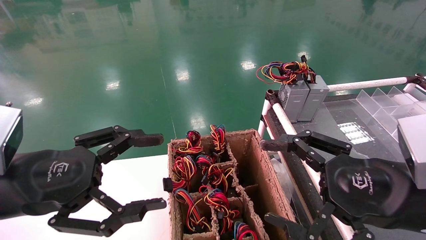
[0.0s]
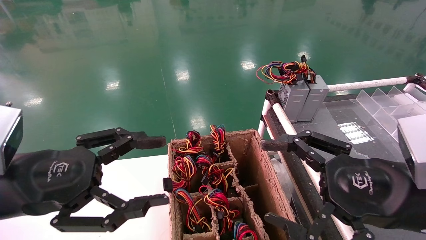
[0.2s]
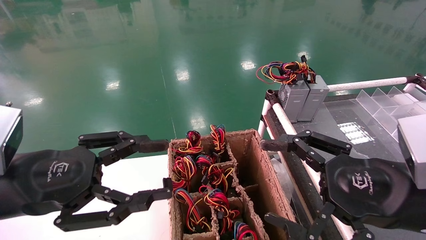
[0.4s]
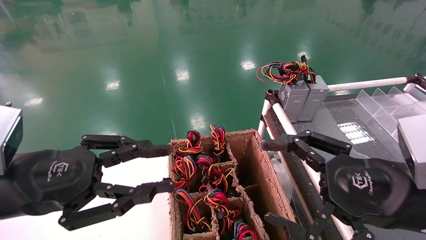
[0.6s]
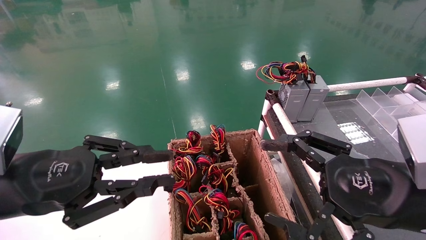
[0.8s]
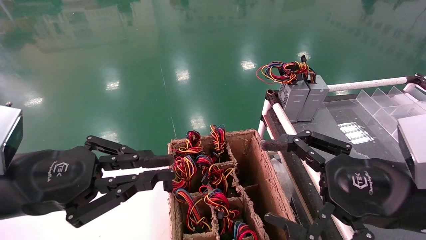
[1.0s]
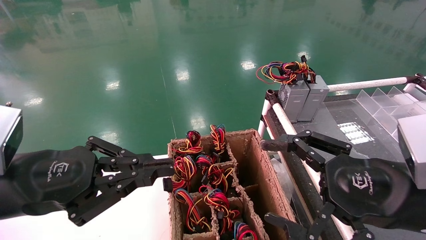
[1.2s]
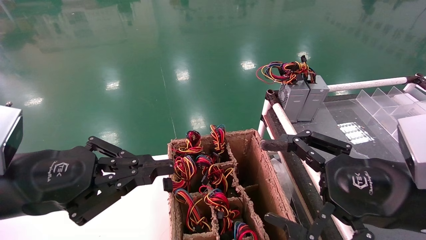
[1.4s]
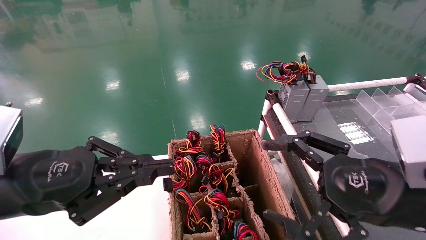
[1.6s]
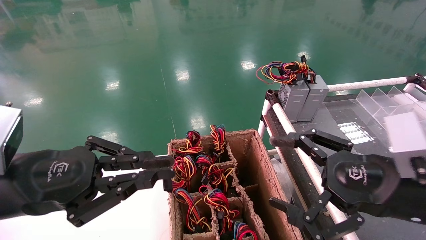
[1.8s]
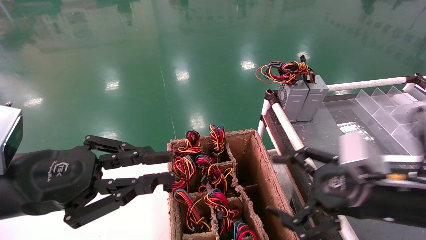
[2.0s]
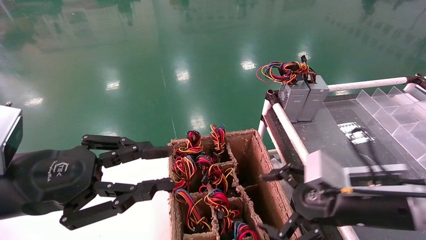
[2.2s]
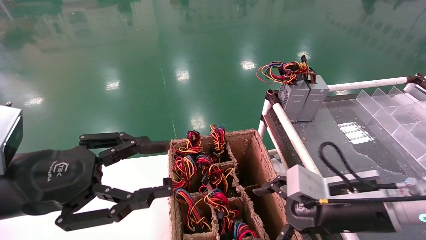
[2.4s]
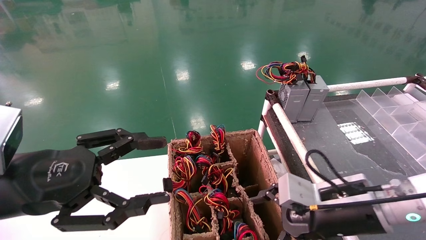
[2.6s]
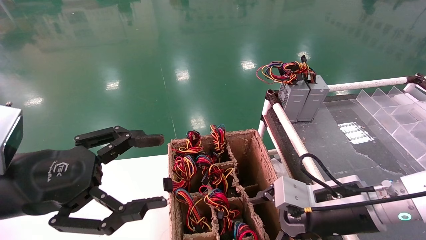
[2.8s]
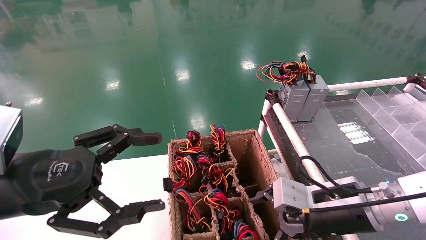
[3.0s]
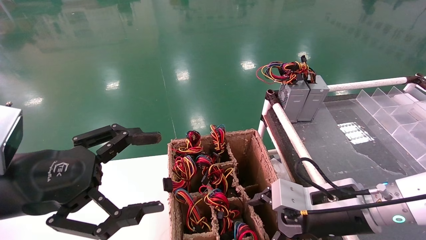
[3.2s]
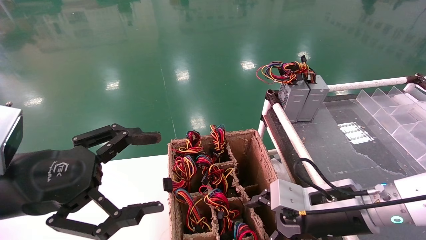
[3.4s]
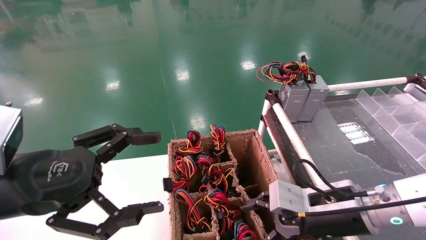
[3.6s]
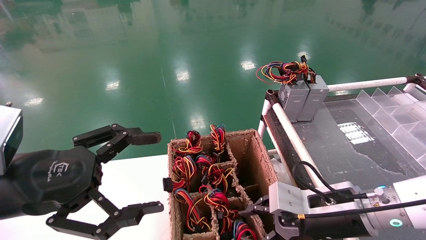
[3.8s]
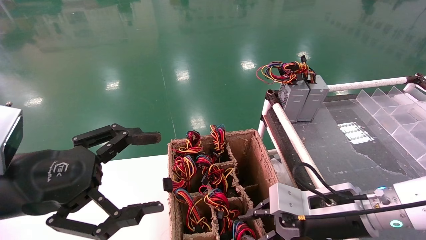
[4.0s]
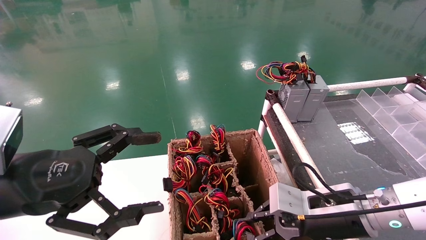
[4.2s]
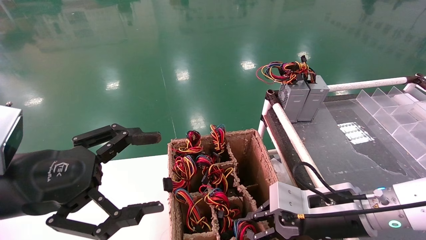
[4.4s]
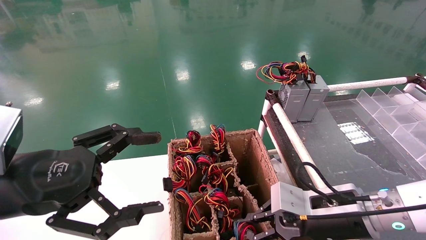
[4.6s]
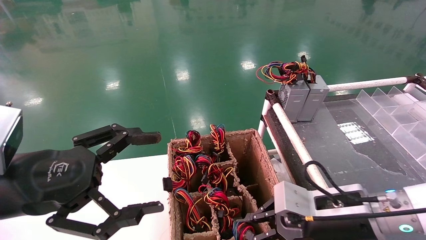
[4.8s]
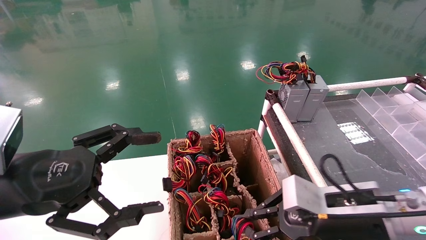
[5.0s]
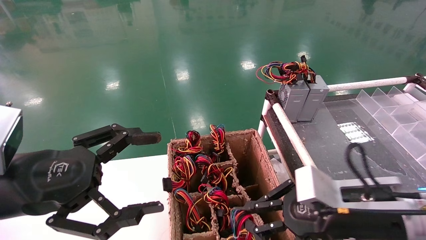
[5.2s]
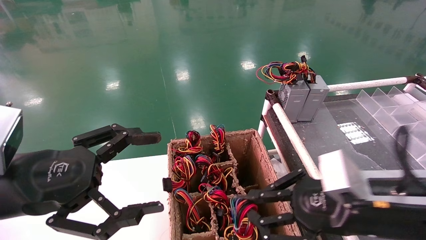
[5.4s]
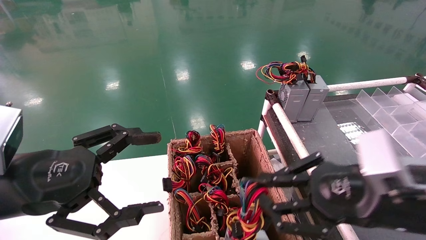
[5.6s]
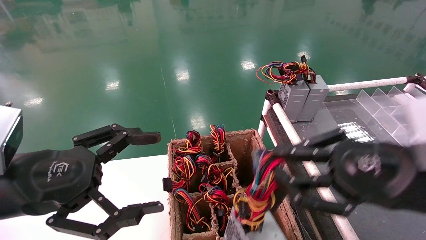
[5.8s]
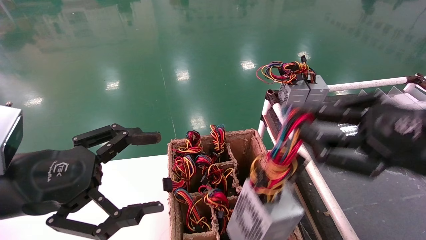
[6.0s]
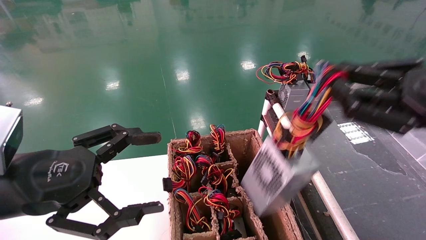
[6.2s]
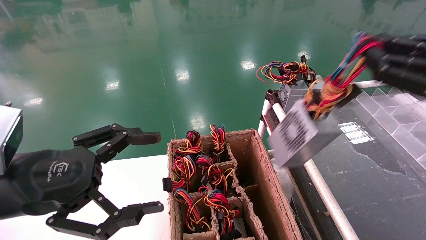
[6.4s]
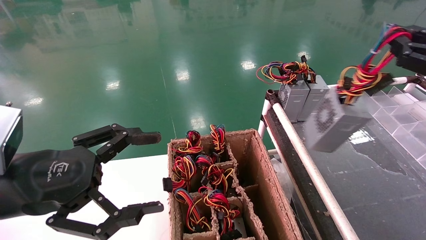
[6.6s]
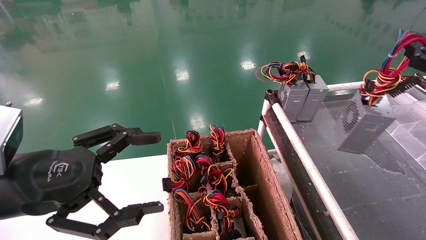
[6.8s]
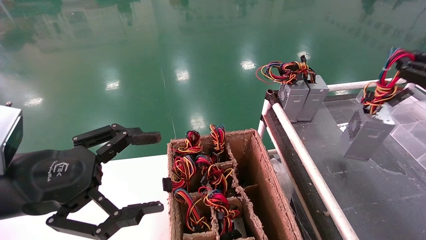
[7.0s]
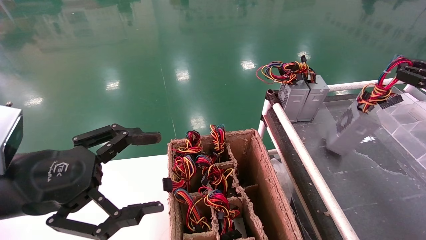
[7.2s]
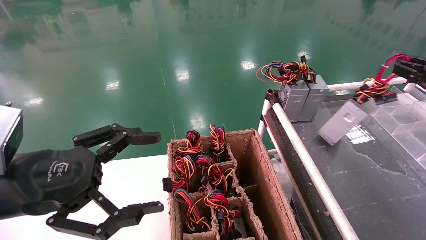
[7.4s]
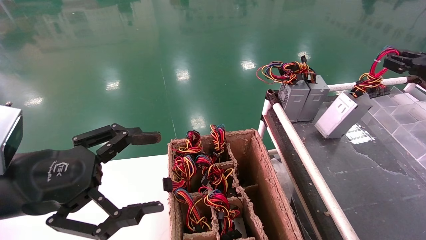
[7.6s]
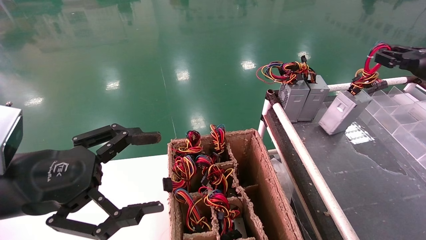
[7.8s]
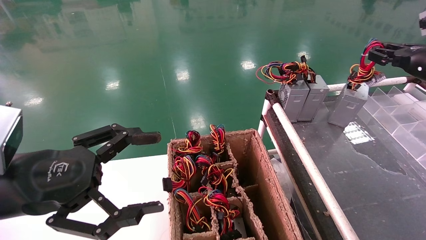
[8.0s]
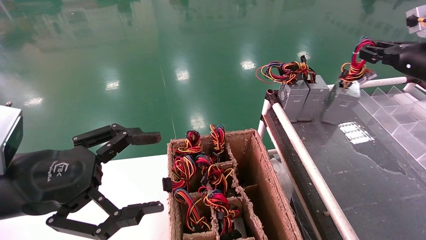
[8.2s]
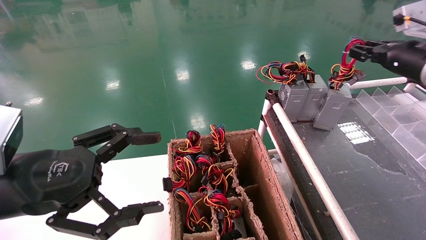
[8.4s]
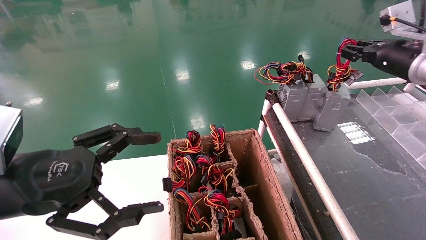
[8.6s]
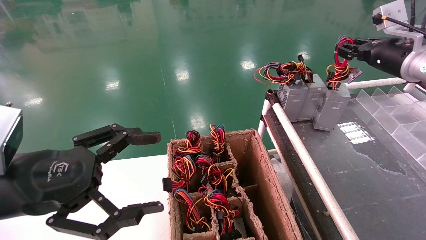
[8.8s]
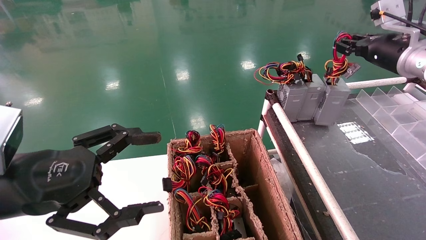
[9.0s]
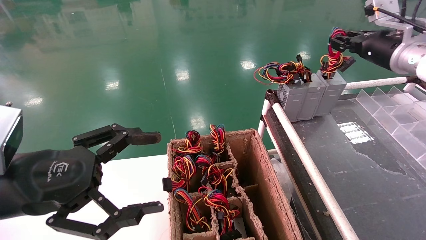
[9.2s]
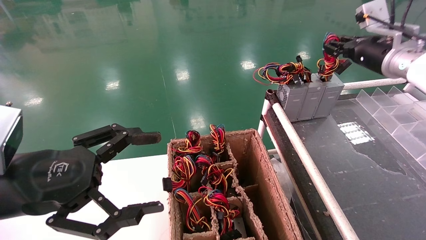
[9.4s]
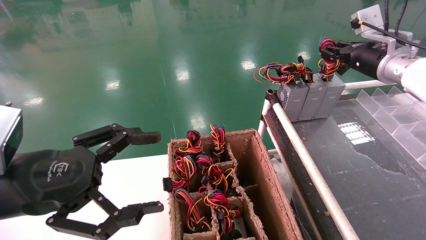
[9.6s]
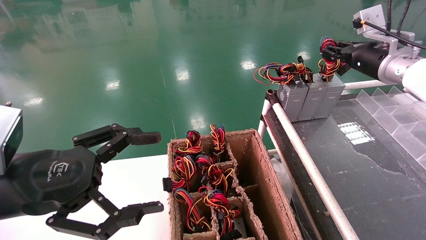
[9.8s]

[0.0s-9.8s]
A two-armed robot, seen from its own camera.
Step, 1.2s to 5.2s: Grab and lift the power supply from the large box.
0.0s to 1.4s: The left gripper closes up.
1.4s to 2.8s: The right gripper is displaced forward and downward by some 10 cm; the left gripper opens.
2.8s to 4.2s: The right gripper closes.
4.2s to 5.6s: The right gripper goes about 10 cm upward and backward.
5.6s to 7.0s: The right gripper goes roughly 25 cm to the right and forward.
7.0s to 8.4s: The right gripper is displaced forward and to the left by roughly 15 cm.
8.4s to 9.8s: The right gripper travels to the left by approximately 5 cm.

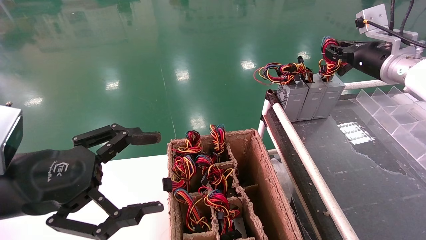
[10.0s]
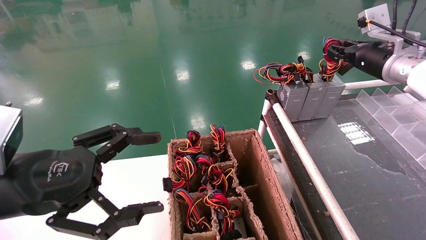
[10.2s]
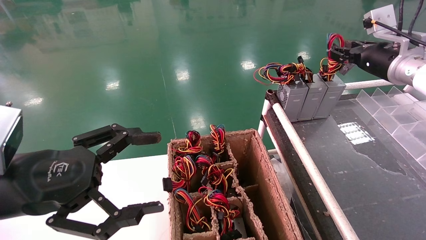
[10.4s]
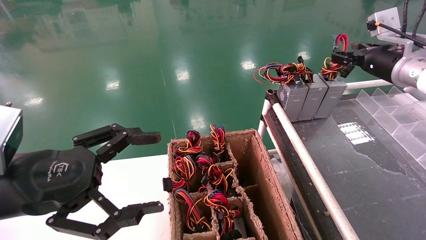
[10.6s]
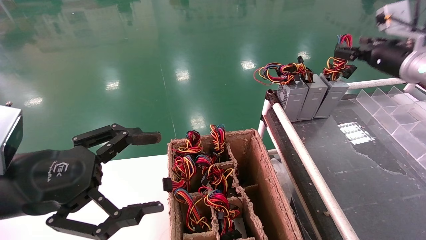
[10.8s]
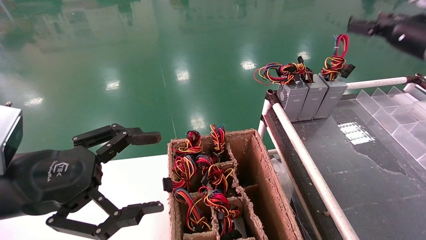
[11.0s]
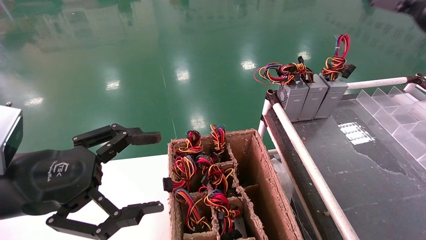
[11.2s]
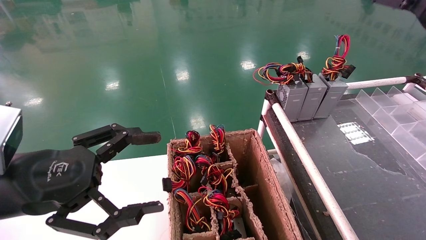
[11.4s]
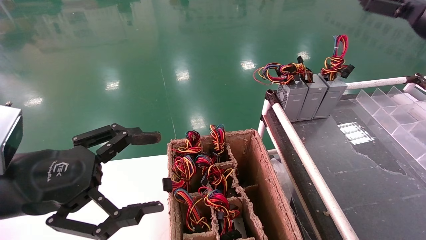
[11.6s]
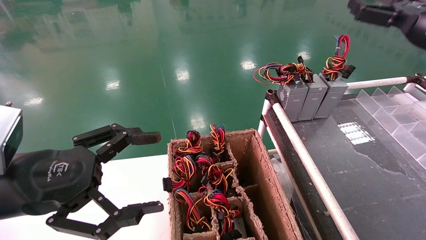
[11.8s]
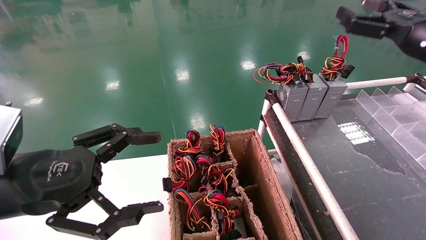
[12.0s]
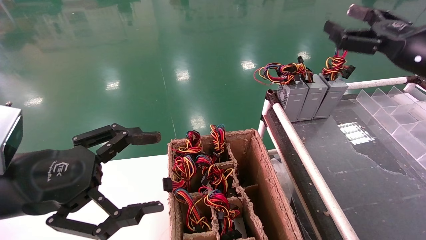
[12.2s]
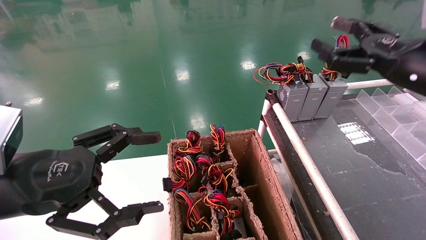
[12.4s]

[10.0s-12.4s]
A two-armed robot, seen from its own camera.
10.0s to 11.2s: The right gripper moves backward, upward and to the right, about 10 cm, and opens up.
11.2s to 12.4s: The right gripper moves backward, to the left and downward, approximately 15 cm.

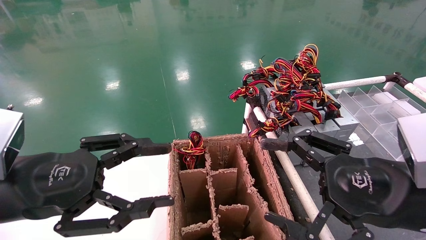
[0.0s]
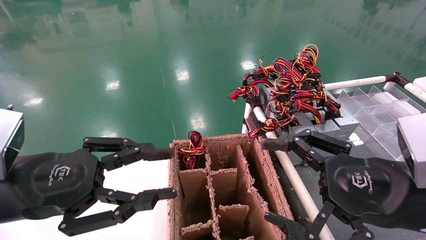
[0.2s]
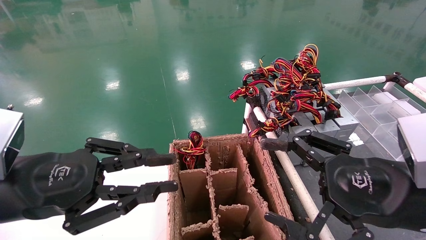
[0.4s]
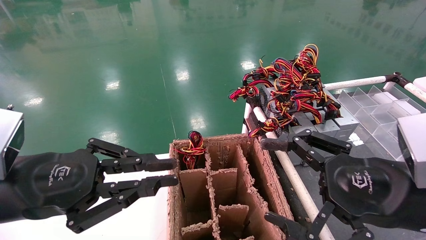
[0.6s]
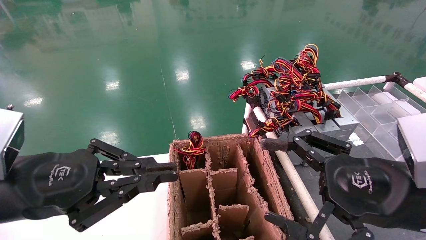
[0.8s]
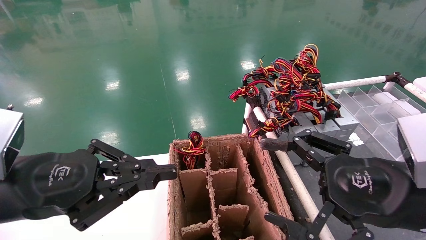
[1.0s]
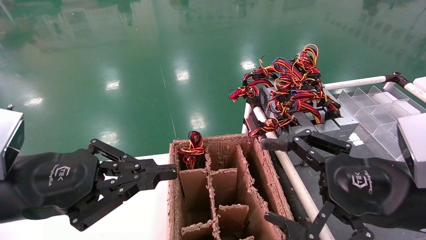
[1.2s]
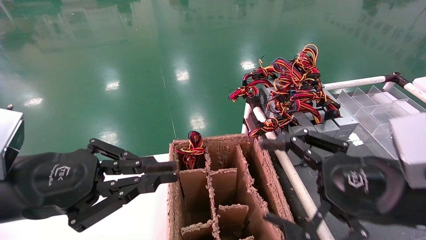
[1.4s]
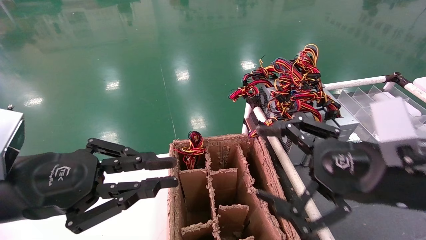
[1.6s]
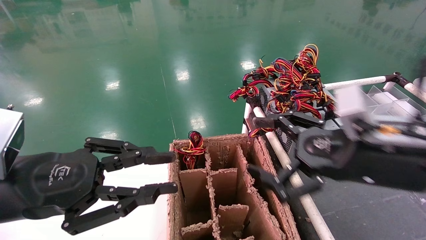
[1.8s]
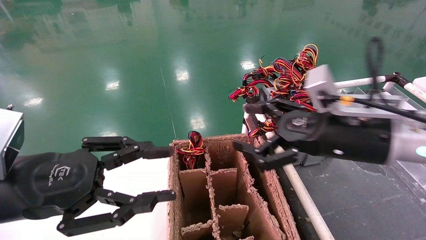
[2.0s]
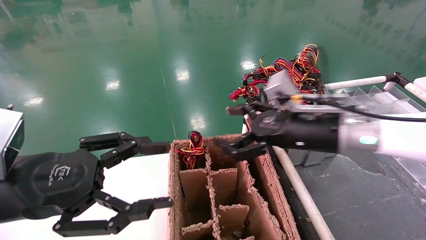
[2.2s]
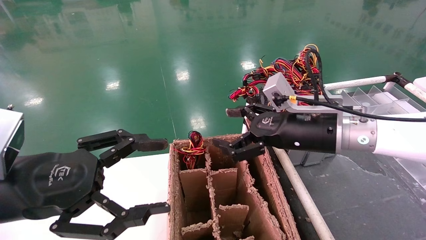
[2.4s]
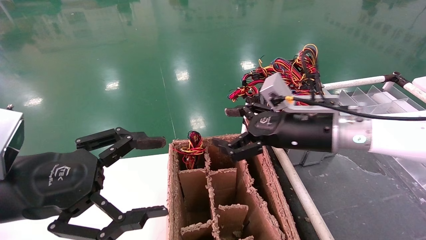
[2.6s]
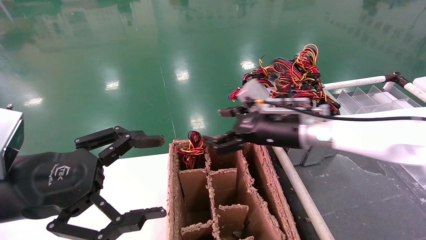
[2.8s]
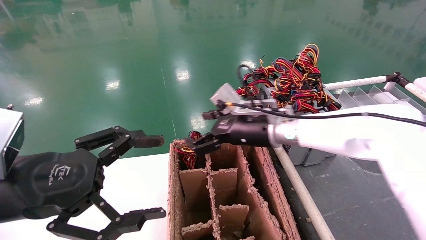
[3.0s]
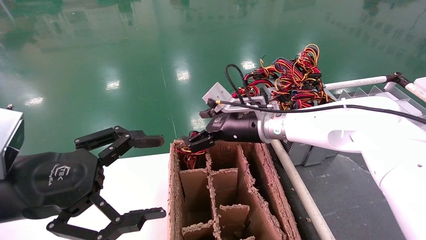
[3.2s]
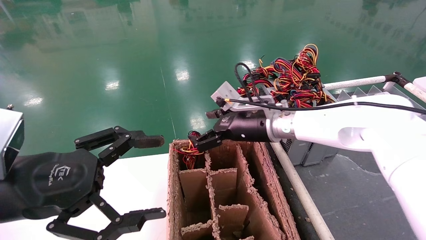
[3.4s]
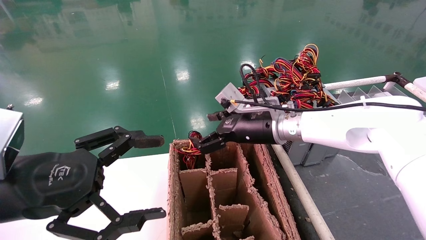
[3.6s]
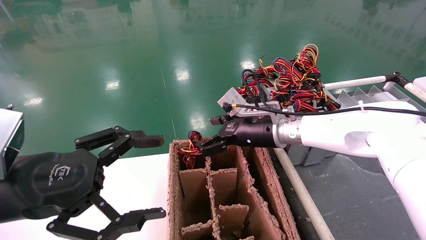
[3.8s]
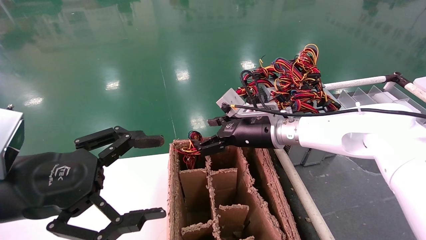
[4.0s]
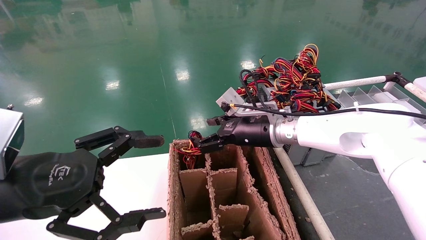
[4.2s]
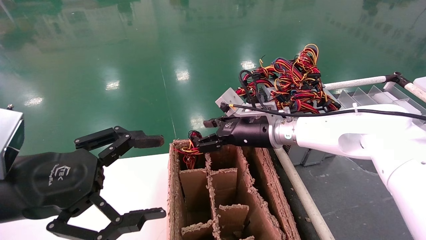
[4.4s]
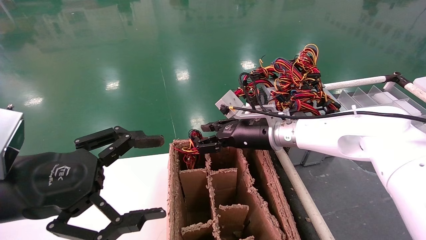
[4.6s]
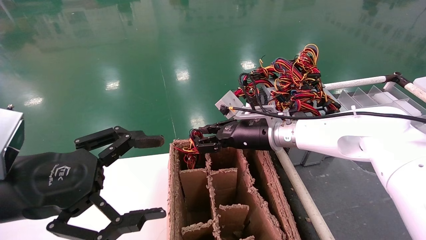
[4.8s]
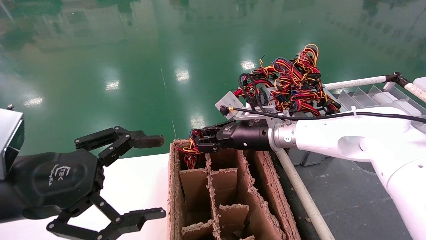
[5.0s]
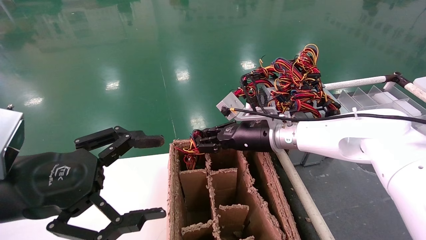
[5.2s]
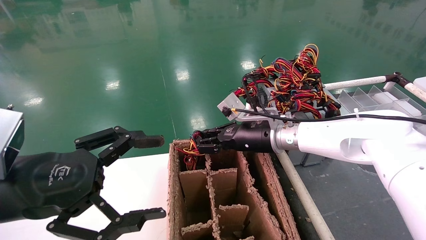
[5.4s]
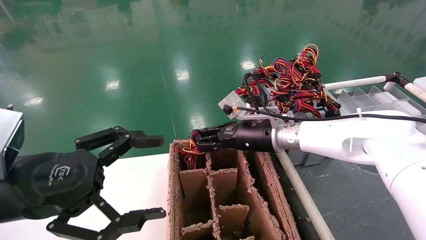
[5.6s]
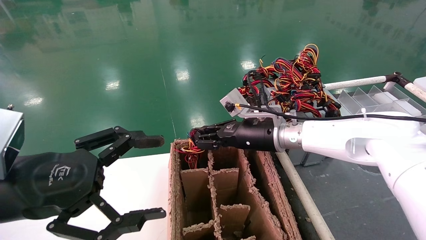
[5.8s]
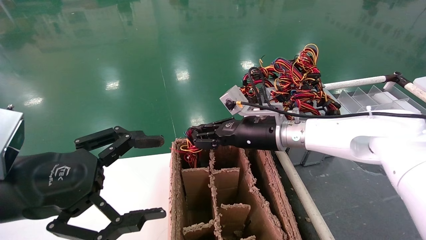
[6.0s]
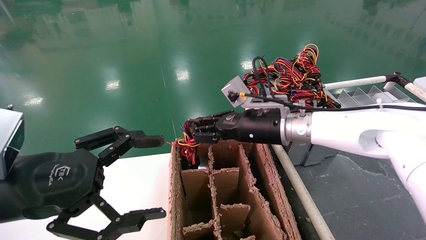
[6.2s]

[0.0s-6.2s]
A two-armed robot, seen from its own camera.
Step, 1.0s to 5.2s: Grab and lift the power supply from the large box.
0.0s to 1.6s: The left gripper closes up.
1.6s to 3.2s: The right gripper is displaced forward and to the left by about 25 cm. Meanwhile the left gripper opens.
3.2s to 4.6s: The right gripper closes.
4.6s to 6.2s: The right gripper closes.
